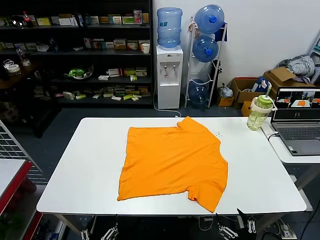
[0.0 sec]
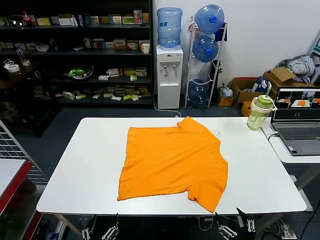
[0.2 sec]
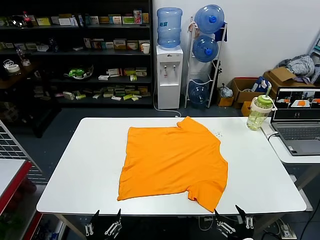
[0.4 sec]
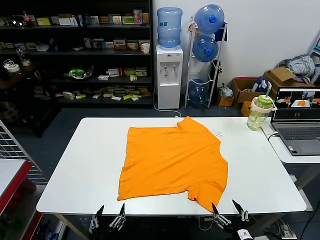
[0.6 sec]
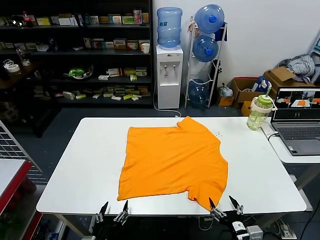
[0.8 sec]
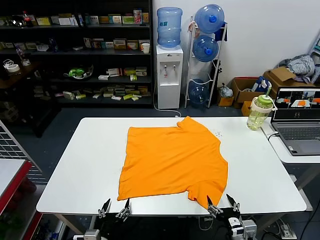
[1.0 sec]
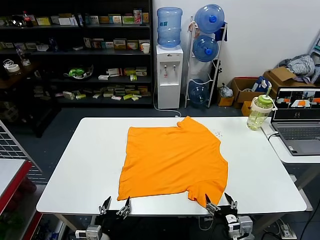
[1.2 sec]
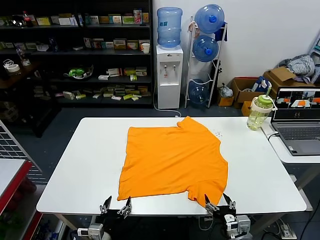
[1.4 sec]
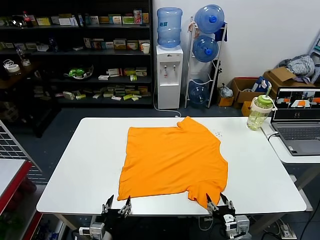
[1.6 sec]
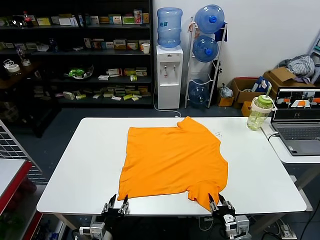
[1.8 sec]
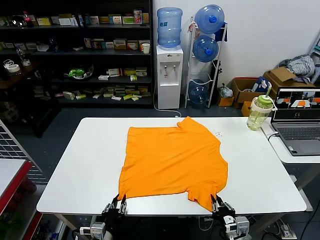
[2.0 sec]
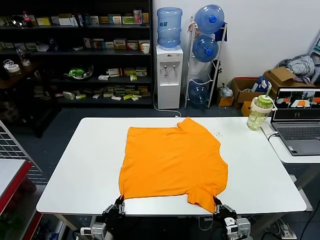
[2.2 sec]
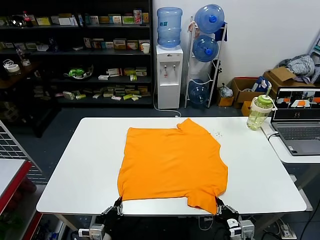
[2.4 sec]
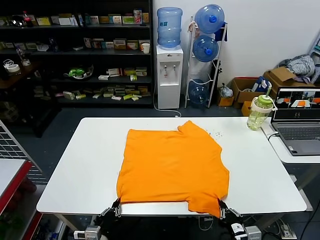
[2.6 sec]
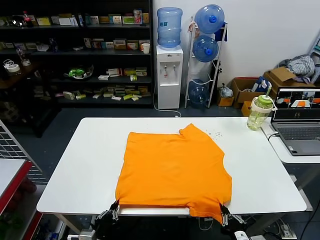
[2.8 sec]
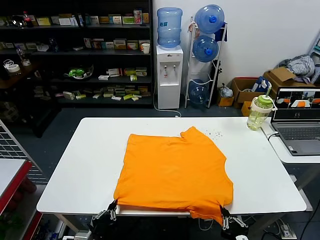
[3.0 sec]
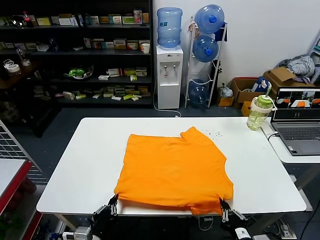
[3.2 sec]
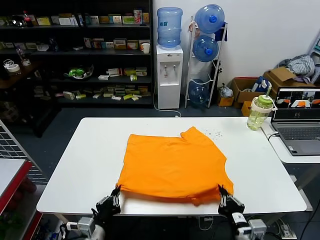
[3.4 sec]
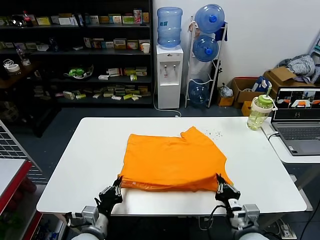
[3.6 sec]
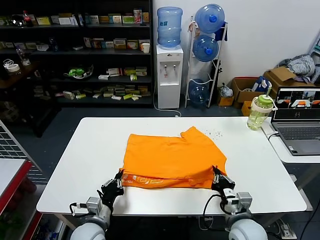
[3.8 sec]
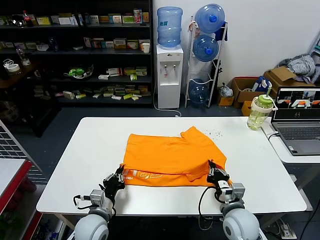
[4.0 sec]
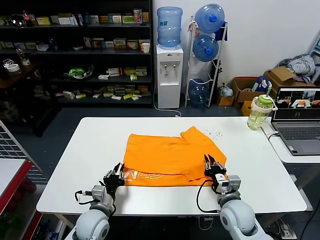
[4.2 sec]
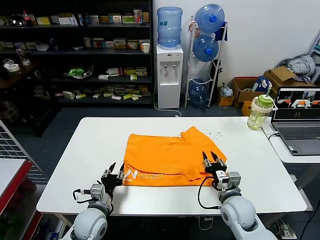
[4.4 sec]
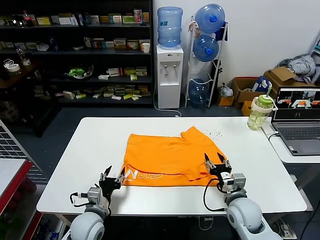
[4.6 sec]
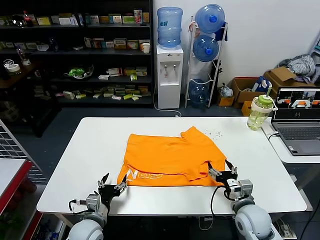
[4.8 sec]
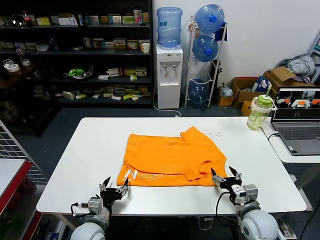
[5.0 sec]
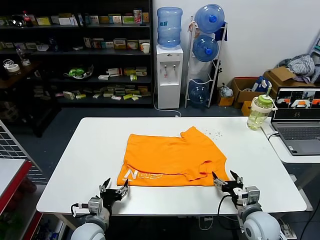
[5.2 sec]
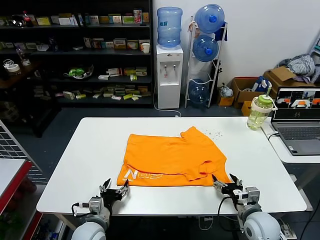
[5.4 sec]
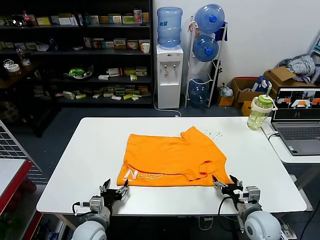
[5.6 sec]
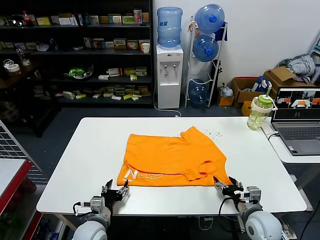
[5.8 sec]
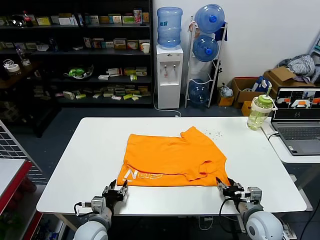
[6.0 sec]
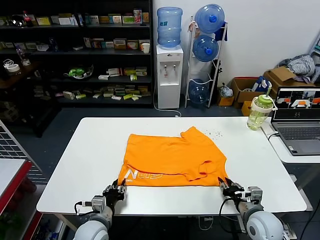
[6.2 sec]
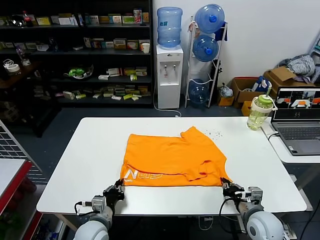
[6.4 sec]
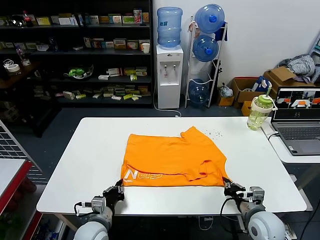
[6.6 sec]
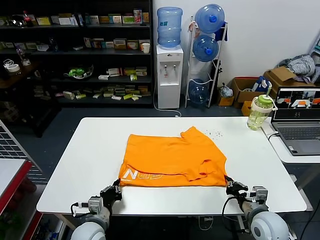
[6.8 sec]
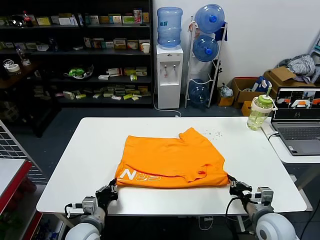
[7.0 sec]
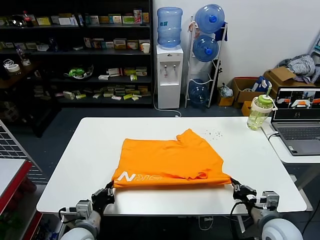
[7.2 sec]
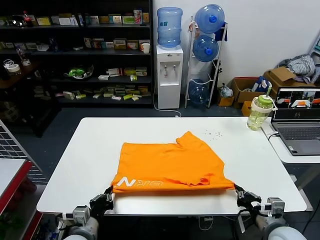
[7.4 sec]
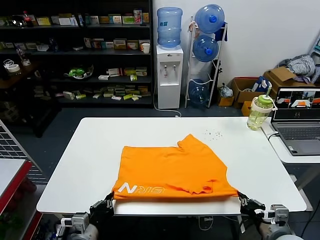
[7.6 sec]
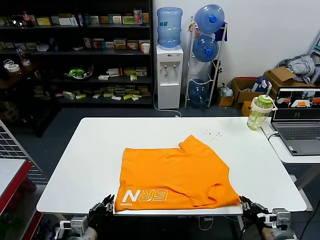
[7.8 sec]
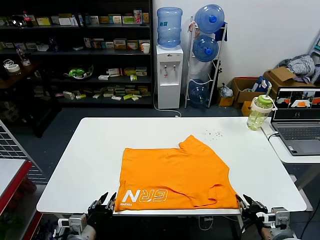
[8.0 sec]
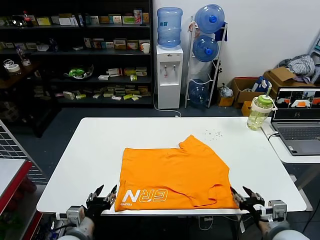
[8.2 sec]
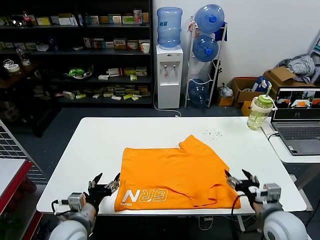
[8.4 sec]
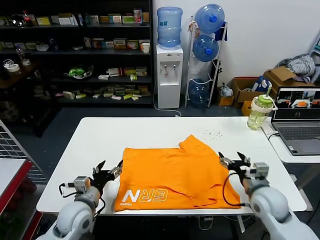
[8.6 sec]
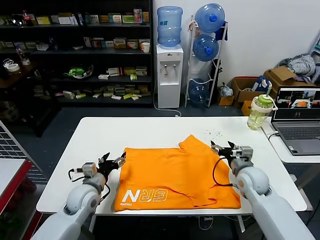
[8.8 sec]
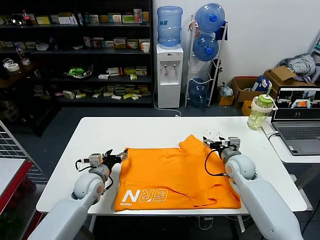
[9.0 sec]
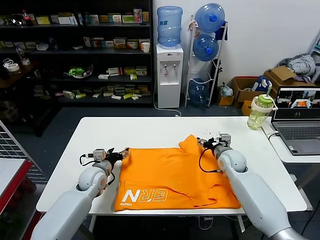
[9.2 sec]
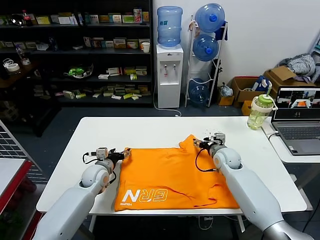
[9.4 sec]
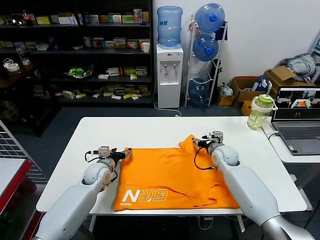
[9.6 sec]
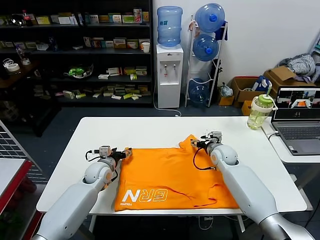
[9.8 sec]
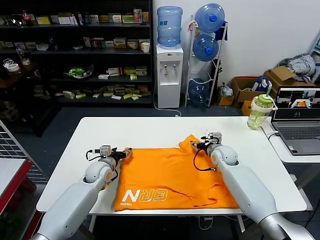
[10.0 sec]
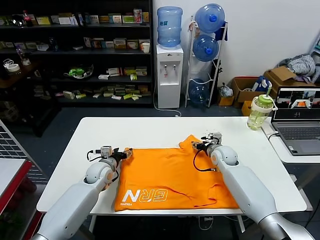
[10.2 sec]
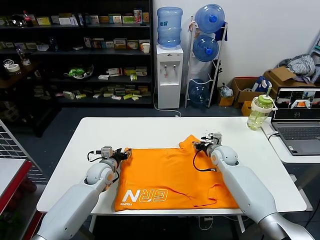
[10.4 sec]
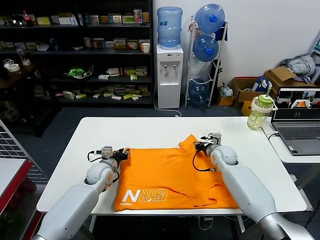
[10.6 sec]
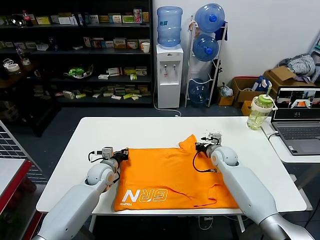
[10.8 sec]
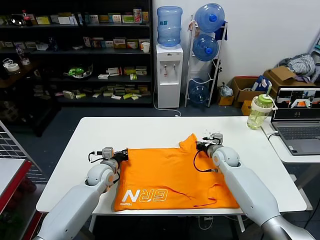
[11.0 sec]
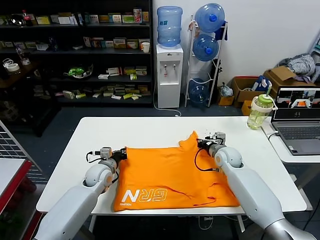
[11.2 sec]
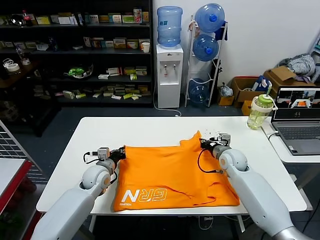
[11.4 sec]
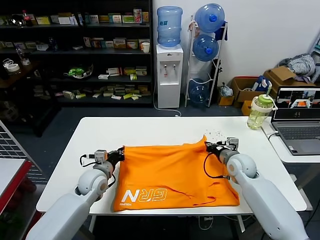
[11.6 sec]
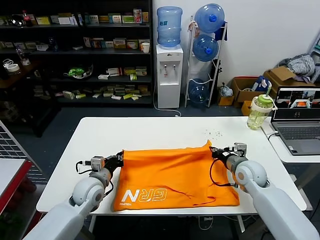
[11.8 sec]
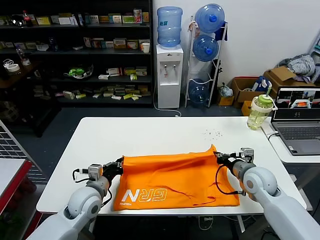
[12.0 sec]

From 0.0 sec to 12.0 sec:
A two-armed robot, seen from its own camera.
Task of the whole recording: fold and organize the clothes.
Step, from 0.0 sec to 2.2 sec: use both grippers simultaneously to clamp the lower edge of the clothing fabric.
Step, from 2.4 sec to 4.2 sec: use both grippers to drag the lower edge of the fabric forward and fold it over the upper edge.
Step, from 4.6 sec to 7.8 sec: Drag the clothes downward with both gripper.
Step, from 8.0 sec to 10.8 sec: use both grippers simultaneously to clamp the upper edge of the clothing fabric.
From 1.6 sec to 3.0 sec: The left gripper moves upward, about 5 cm, and closes, while the right gripper is displaced backward and upward by roughly 10 cm, and closes up.
From 3.0 sec to 4.4 sec: The grippers both shift forward by some 15 cm. The right gripper opens. The left gripper opens its fingers.
From 4.4 sec to 6.0 sec: The right gripper shifts approximately 5 cm to the right, and opens, then closes once more; the left gripper opens and closes again.
From 6.0 sec to 7.6 sec: The grippers both shift backward and upward by roughly 10 cm. The left gripper closes up. Meanwhile the right gripper closes its fingers.
From 7.6 sec to 9.0 sec: The two grippers go approximately 25 cm forward. The left gripper opens its fingers; the right gripper opens its fingers.
From 9.0 sec to 10.4 sec: Both grippers move forward, some 5 cm. The left gripper closes its fingers. Meanwhile the right gripper closes its fingers.
From 10.4 sec to 12.0 sec: The left gripper heads backward and upward, covering approximately 15 cm, and closes; the right gripper heads backward, upward and to the right, covering approximately 15 cm, and closes.

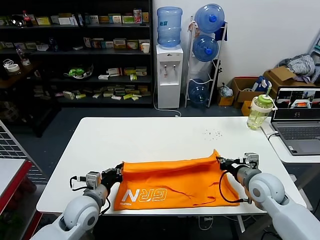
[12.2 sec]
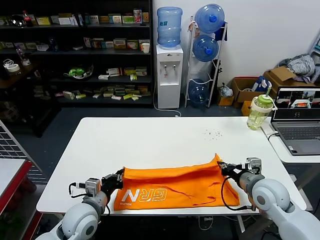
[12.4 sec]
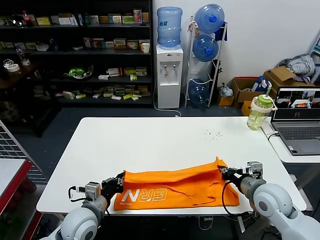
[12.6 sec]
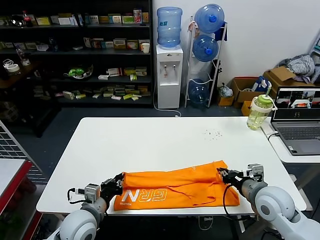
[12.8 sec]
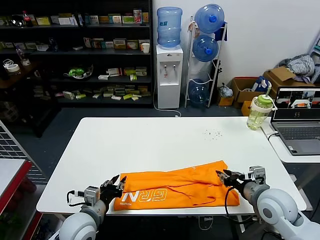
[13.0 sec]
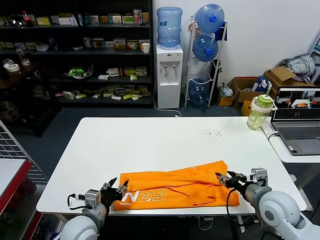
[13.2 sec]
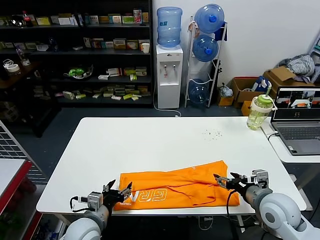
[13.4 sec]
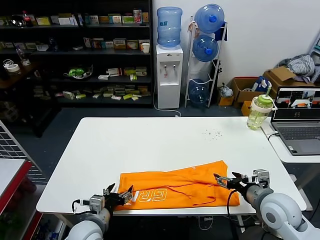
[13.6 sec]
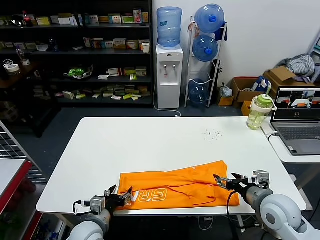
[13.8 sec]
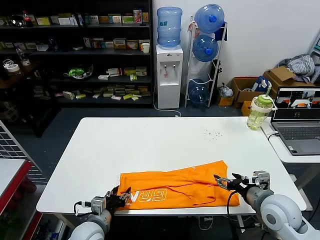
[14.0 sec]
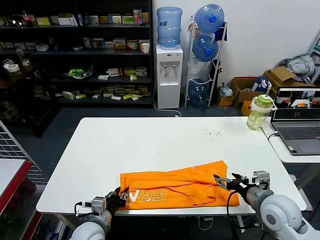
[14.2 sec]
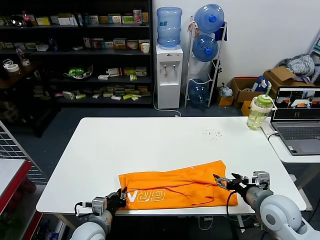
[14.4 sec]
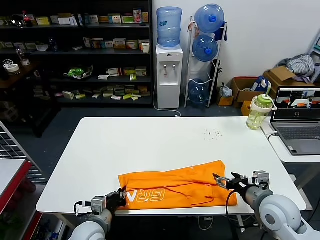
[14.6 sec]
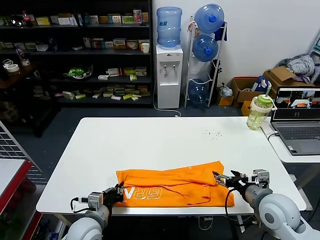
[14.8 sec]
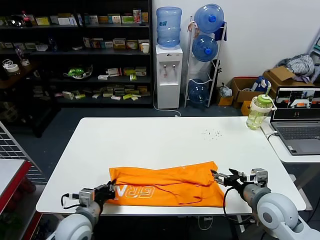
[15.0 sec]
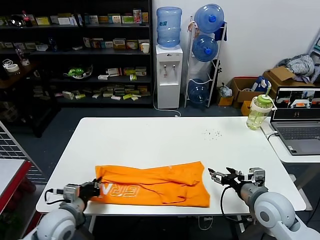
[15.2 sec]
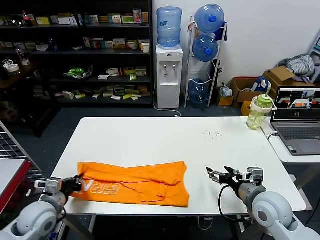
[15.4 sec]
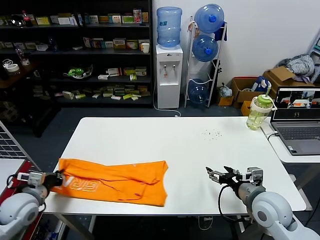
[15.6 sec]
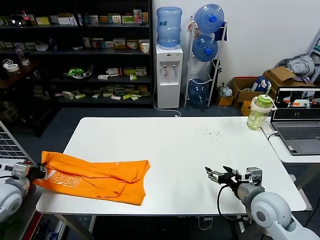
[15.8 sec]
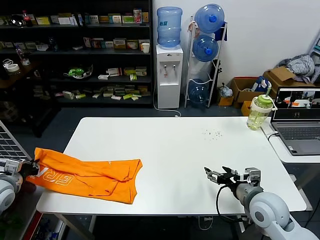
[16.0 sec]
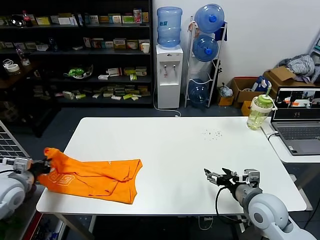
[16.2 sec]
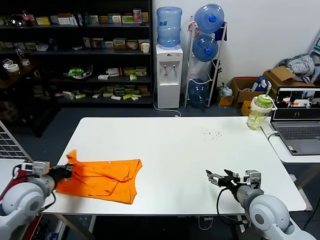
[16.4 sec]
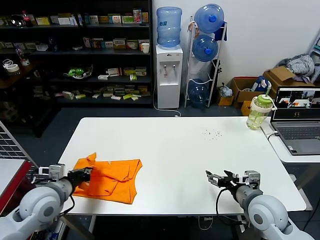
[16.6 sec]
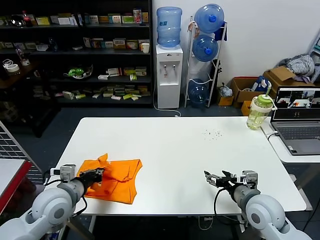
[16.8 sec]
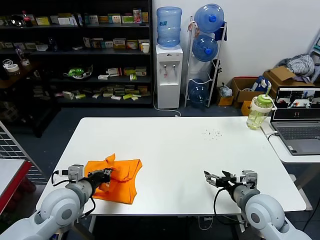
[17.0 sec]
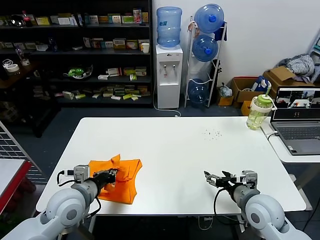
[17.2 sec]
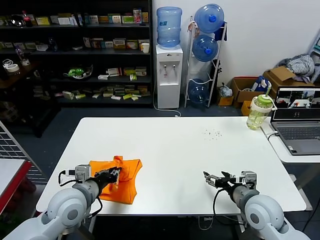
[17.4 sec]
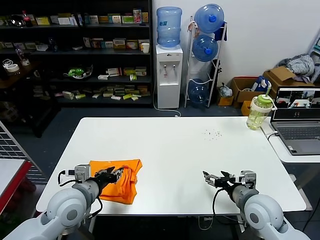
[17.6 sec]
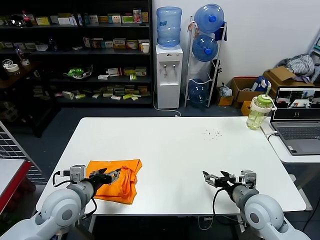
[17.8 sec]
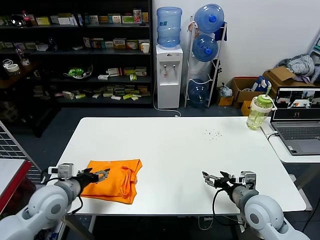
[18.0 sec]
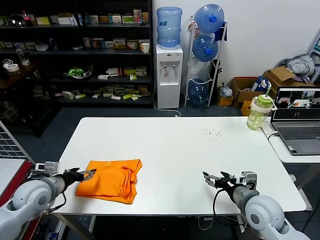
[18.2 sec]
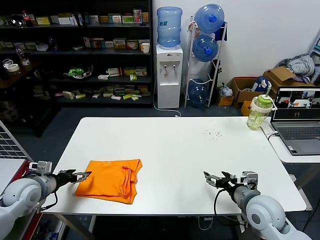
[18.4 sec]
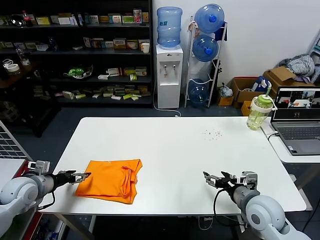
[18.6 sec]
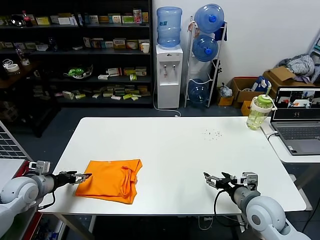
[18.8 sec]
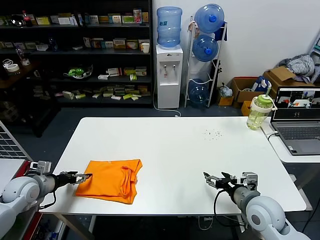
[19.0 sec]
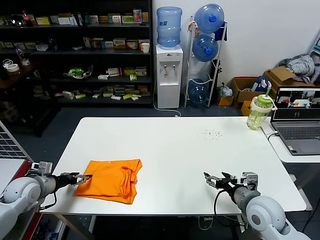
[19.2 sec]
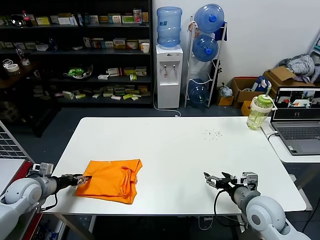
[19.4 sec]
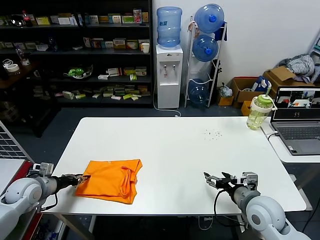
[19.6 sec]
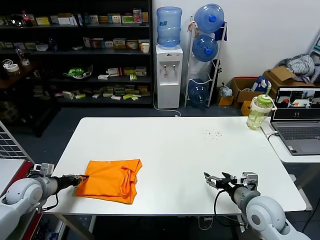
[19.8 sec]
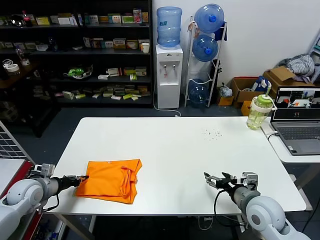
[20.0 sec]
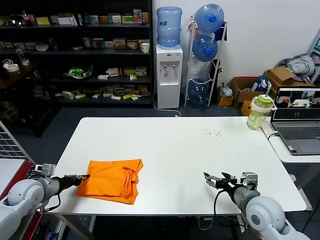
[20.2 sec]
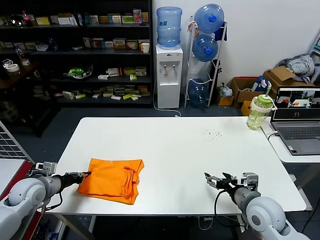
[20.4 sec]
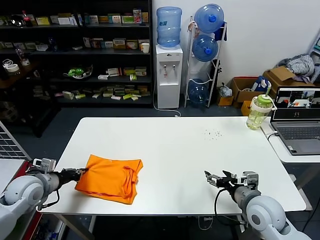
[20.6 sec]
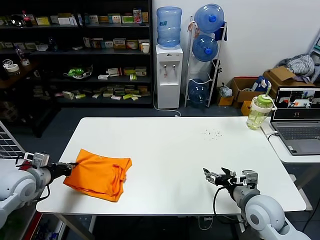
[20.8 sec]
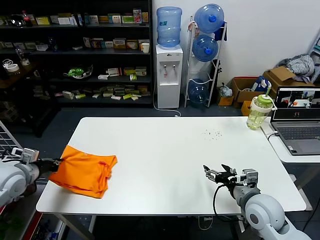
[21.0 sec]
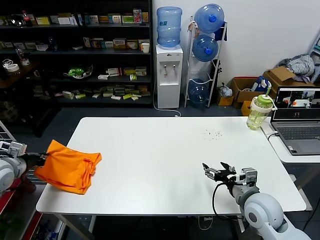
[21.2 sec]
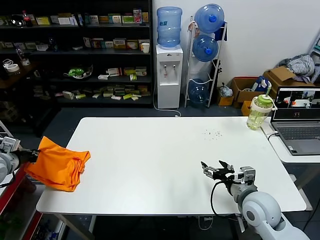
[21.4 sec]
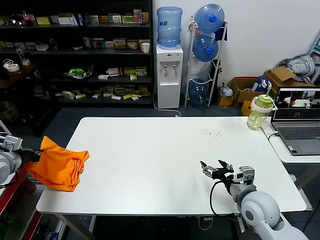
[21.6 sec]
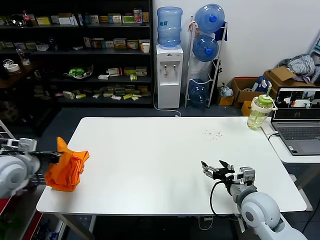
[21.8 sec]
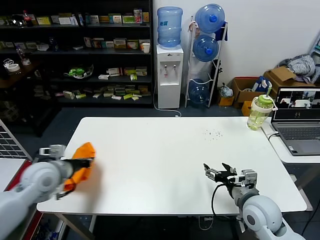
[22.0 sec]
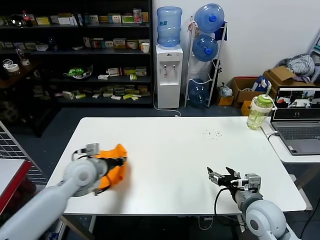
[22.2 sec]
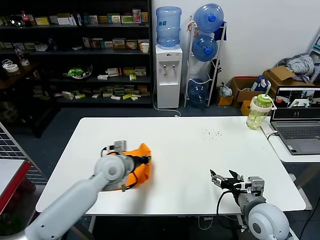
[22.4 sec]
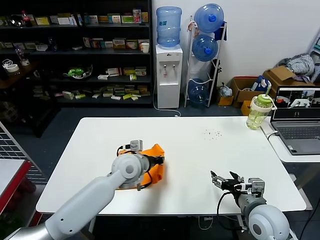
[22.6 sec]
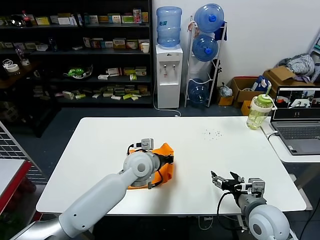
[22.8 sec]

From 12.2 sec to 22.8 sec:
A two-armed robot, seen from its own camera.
Task of the whole recording: fold and organize the clothes.
Step, from 13.2 sec to 14.4 sec: use the left gripper to clamp the left edge of the fabric.
Step, from 14.6 sec to 17.4 sec: use the left gripper to drag the left edge of the fabric to the left and folds it over the right edge.
From 12.2 sec to 13.8 sec: Both grippers travel together backward, about 5 cm. The left gripper opens. The right gripper opens.
From 13.8 sec to 15.2 sec: The left gripper goes some 5 cm to the left, and closes.
From 15.2 sec to 16.8 sec: The left gripper shifts about 5 cm upward, and goes to the left and returns, about 20 cm each way.
From 16.8 sec to 18.2 sec: The left gripper shifts about 5 cm to the left, and opens.
From 18.2 sec to 19.8 sec: The left gripper is displaced to the left by about 10 cm, and closes up.
From 19.8 sec to 21.2 sec: The left gripper moves upward, approximately 10 cm.
From 21.2 sec to 22.8 sec: The left gripper goes roughly 40 cm to the right.
